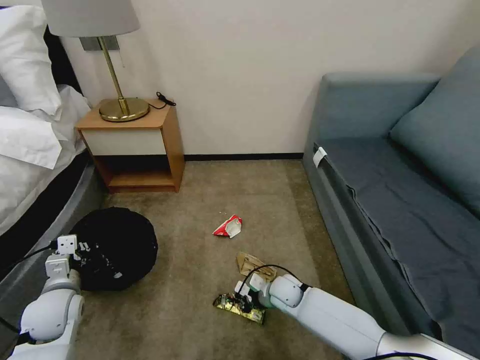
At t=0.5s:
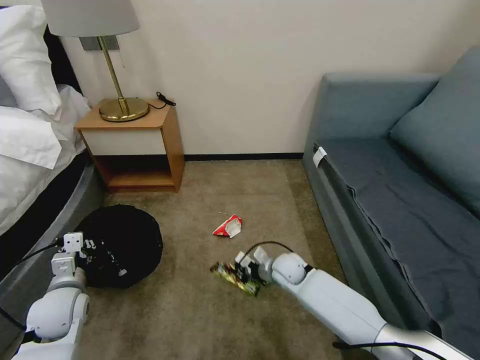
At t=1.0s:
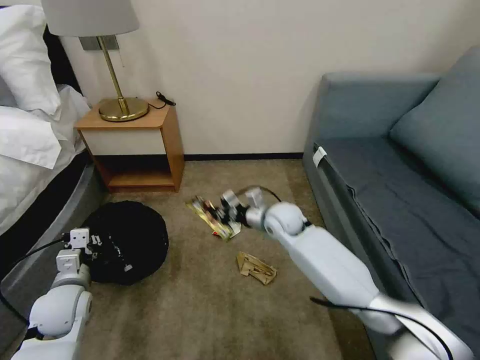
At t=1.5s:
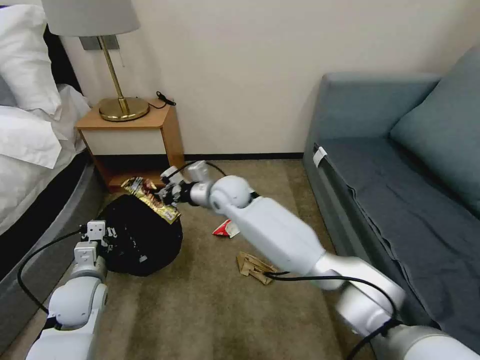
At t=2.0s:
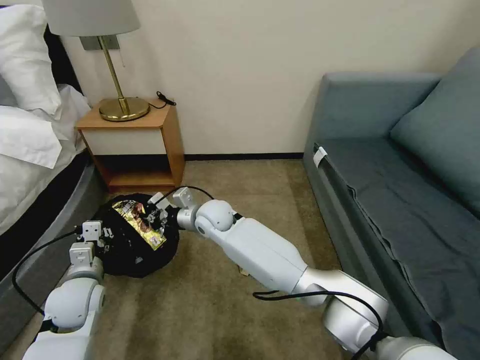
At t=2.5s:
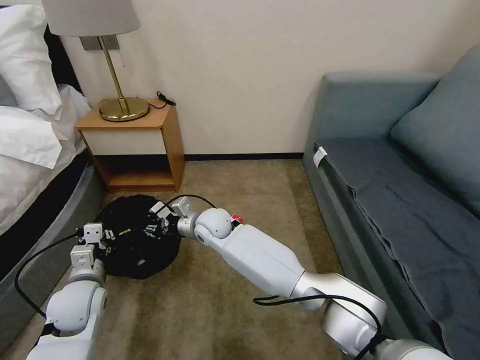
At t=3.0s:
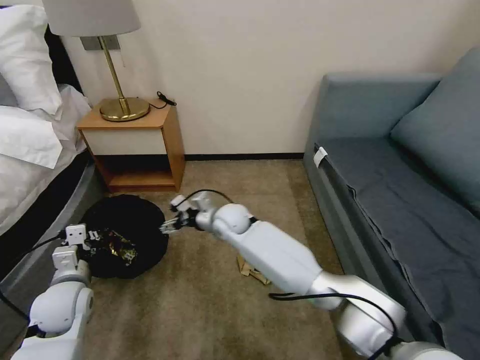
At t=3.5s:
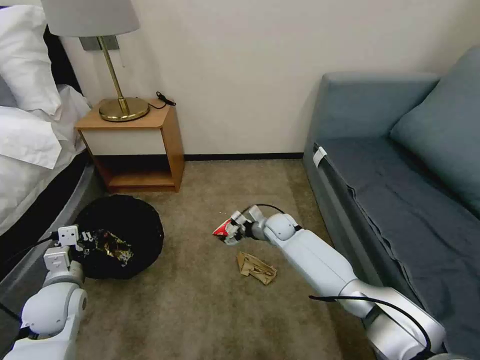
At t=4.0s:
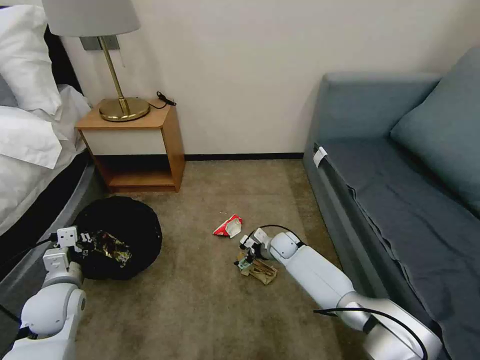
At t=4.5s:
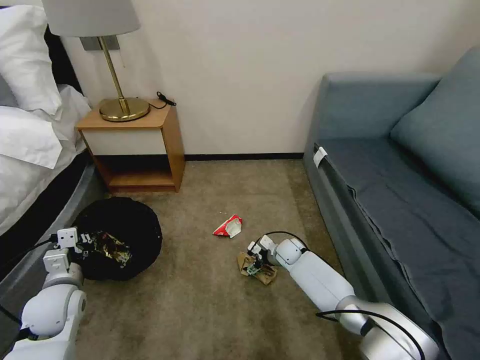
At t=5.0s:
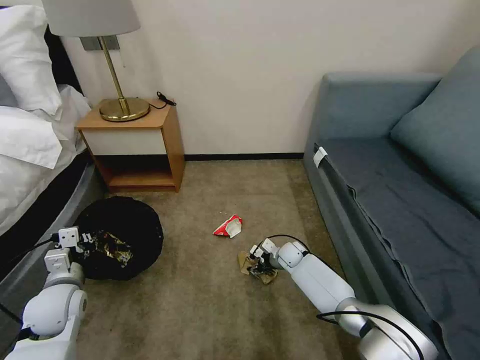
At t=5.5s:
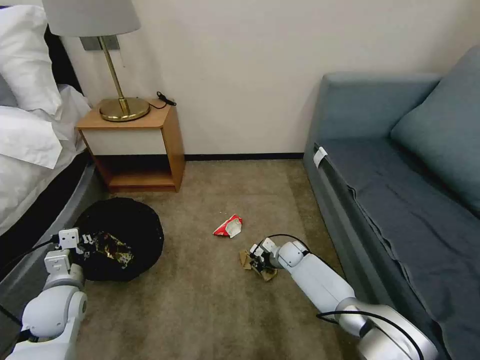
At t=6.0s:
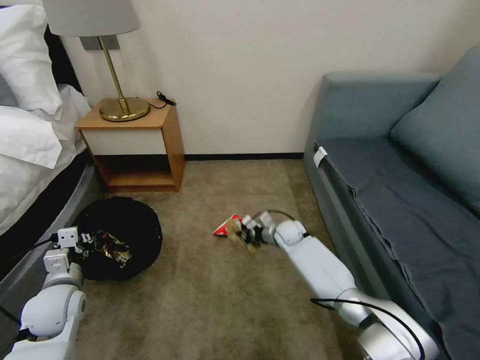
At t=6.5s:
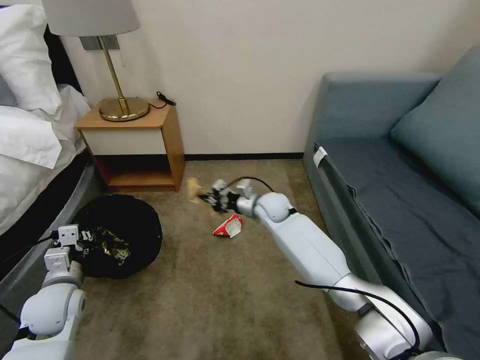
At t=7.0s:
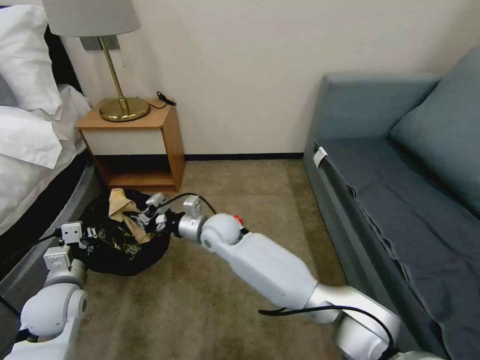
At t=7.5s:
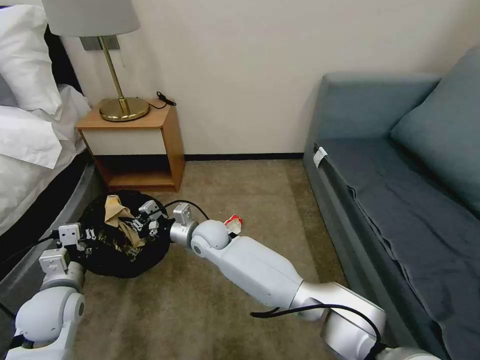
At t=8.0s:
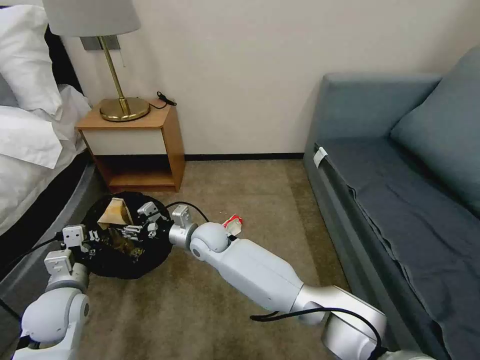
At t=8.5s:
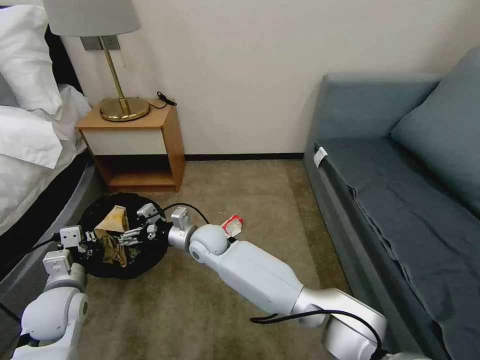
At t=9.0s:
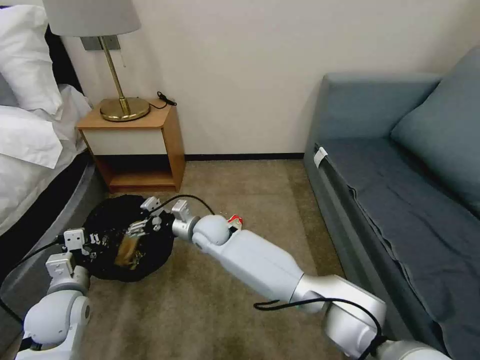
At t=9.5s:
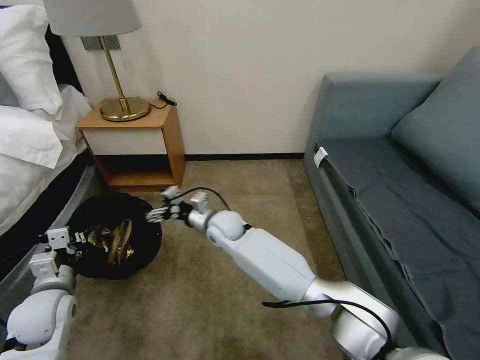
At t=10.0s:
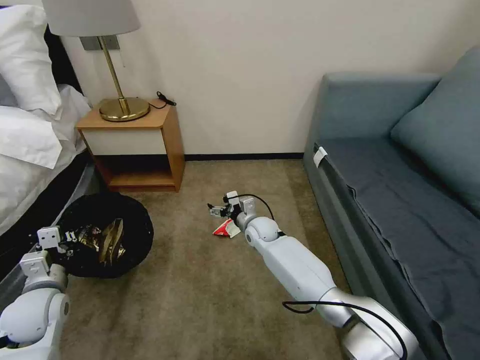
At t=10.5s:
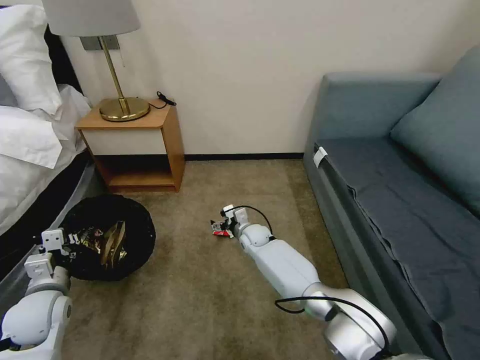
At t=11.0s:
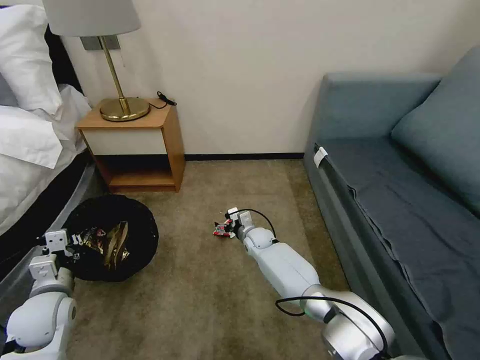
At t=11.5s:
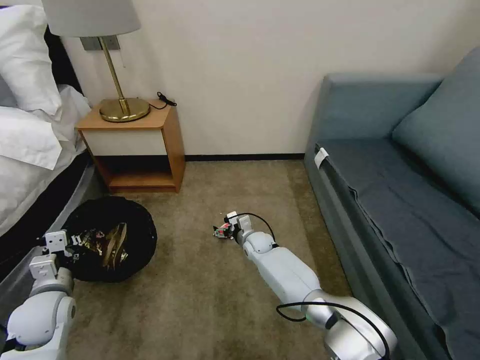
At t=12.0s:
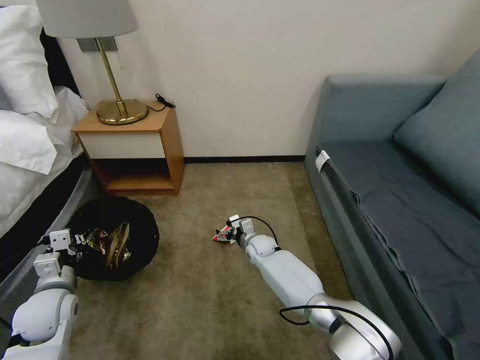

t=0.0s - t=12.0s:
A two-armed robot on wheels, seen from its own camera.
Task of the whole recording: Pick up the trash bin, then pick up the garbage on the floor and place it into the trash bin.
t=0.0s - t=2.0s: The left gripper changes place by some 5 cm. The right gripper heads upward, to the left and forward, covering about 30 cm.
t=2.0s - t=4.0s: The right gripper travels to the right and downward by some 30 cm, and opens its fingers.
t=4.0s - t=6.0s: The right gripper closes up.
t=6.0s - t=8.0s: The right gripper shifts about 25 cm to the left and upward, and opens its fingers.
t=8.0s - t=10.0s: The right gripper shifts roughly 15 cm to the right, forward and downward, and opens up.
t=10.0s - t=12.0s: The right gripper shifts roughly 10 cm downward.

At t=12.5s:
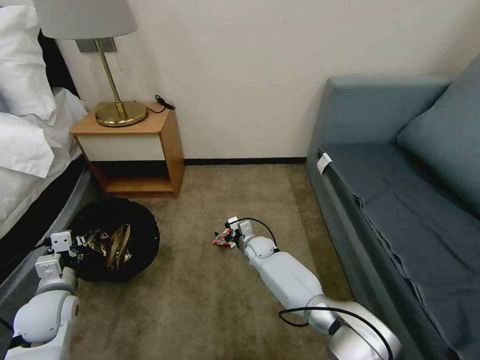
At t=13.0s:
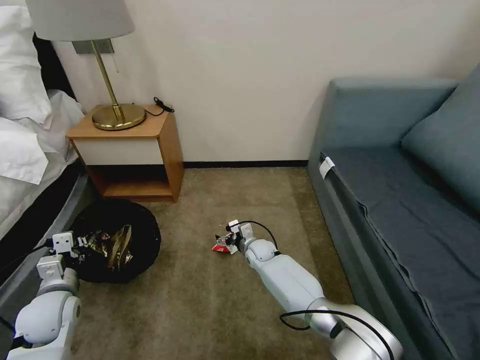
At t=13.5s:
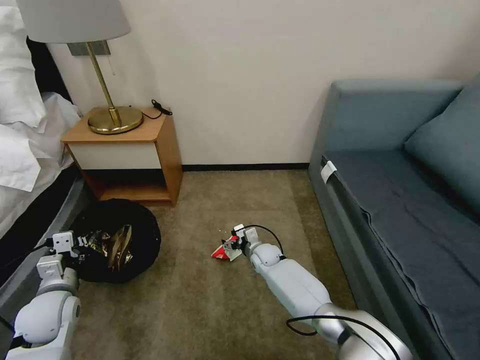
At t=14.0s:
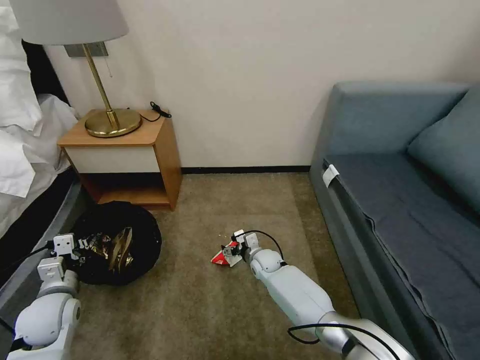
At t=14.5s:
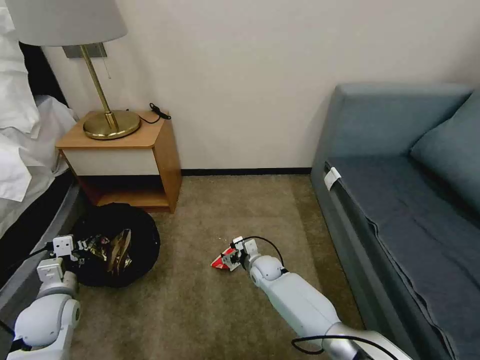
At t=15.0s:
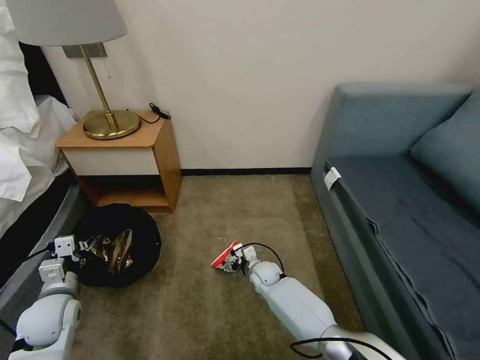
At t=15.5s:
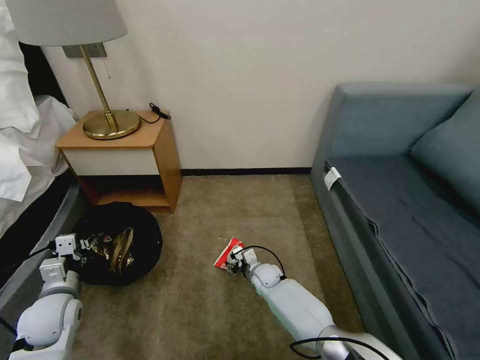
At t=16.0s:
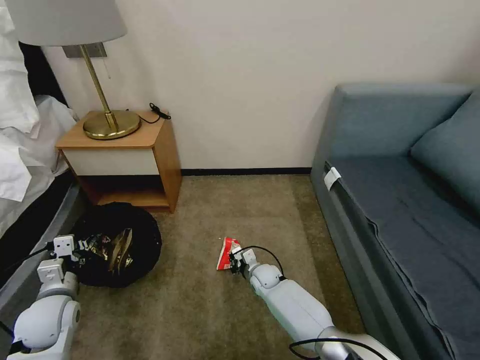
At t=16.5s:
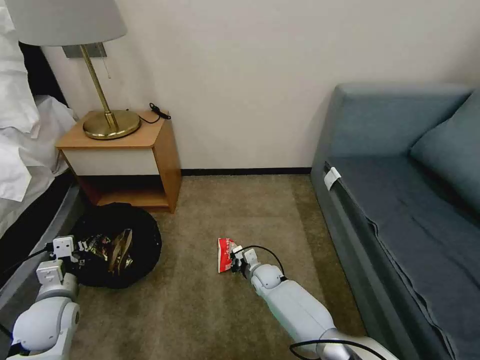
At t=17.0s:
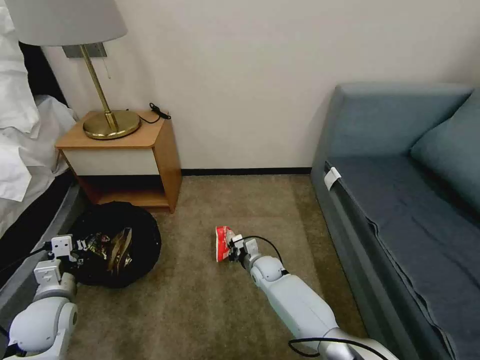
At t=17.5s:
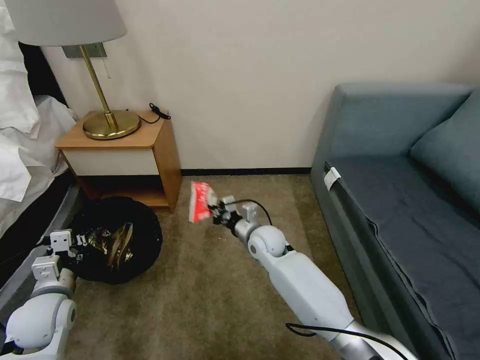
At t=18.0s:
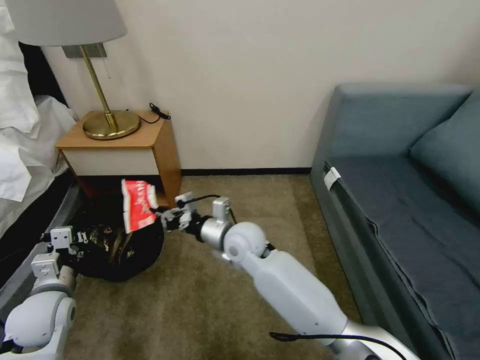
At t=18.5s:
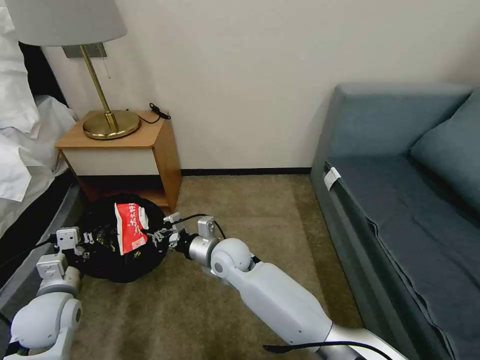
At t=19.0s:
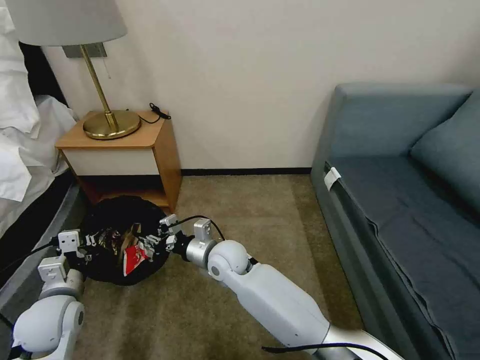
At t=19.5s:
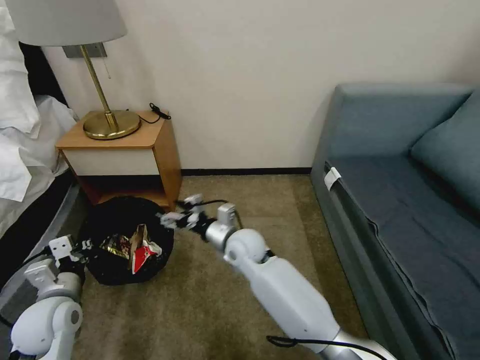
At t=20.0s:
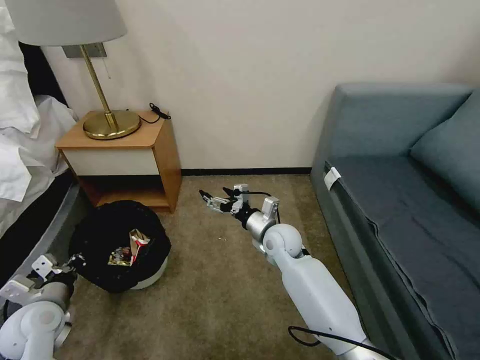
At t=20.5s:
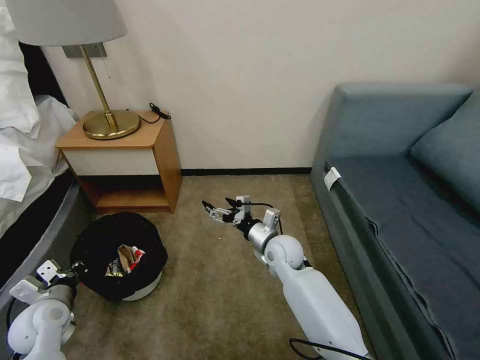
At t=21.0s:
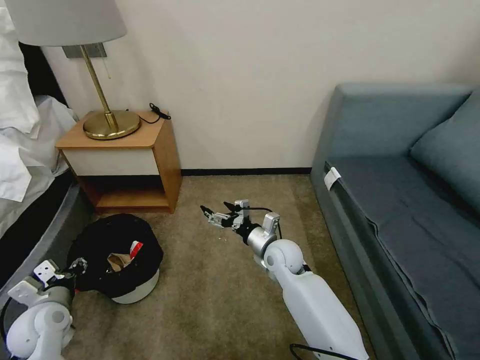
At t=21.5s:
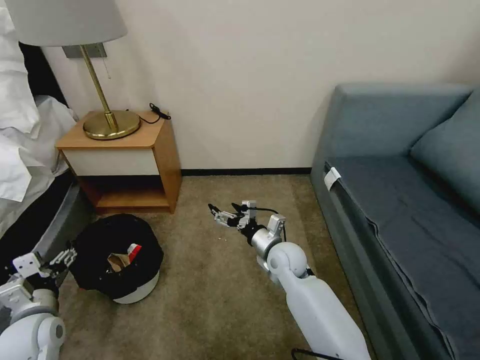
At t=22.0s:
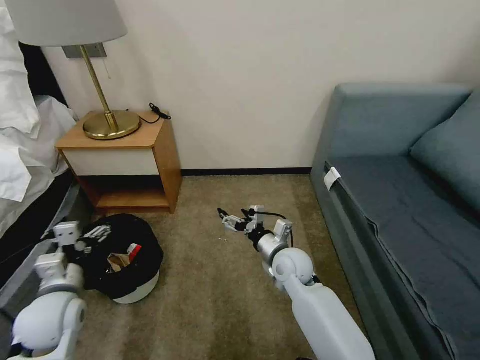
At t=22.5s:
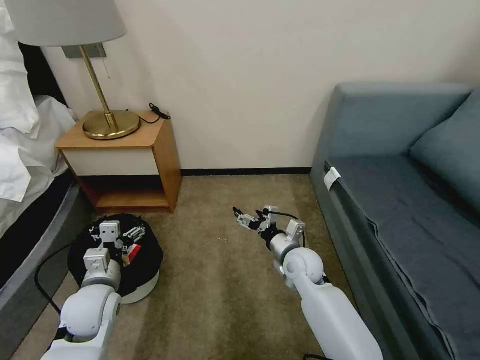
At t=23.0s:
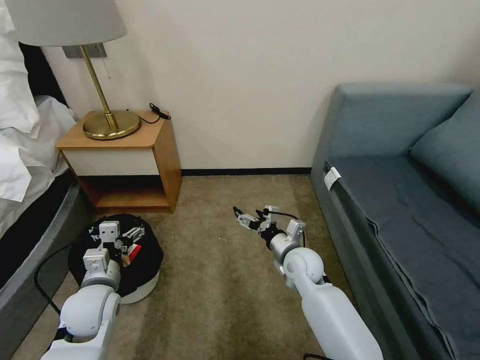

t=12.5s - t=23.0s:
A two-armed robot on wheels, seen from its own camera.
Task of the whole recording: Pick up the trash bin, then pick up the garbage on the floor and place it into the trash bin.
t=12.5s - t=14.5s: The right gripper moves backward, approximately 5 cm.
t=14.5s - t=16.5s: The right gripper closes.
t=16.5s - t=19.0s: The right gripper shifts roughly 25 cm upward and to the left.
t=19.0s - t=21.0s: The right gripper shifts roughly 15 cm to the right, and opens up; the left gripper changes place by roughly 5 cm, and opens.
t=21.0s - t=23.0s: The left gripper moves to the right, approximately 10 cm, and opens up. The right gripper shifts by roughly 5 cm.
